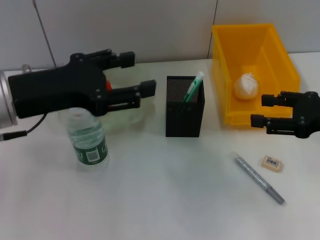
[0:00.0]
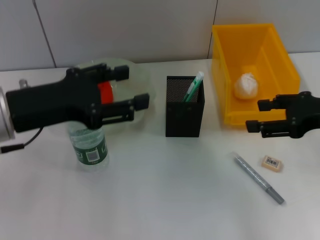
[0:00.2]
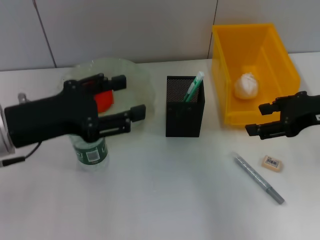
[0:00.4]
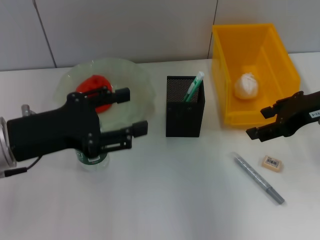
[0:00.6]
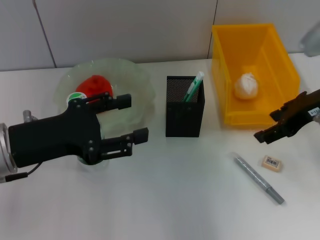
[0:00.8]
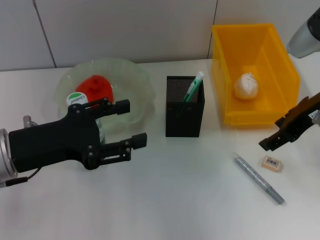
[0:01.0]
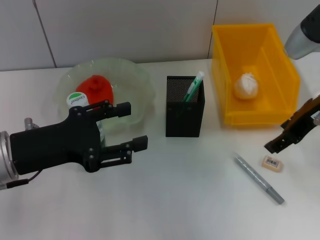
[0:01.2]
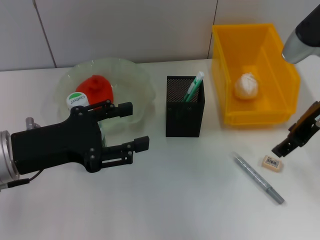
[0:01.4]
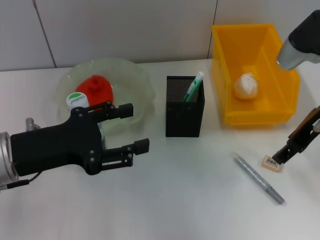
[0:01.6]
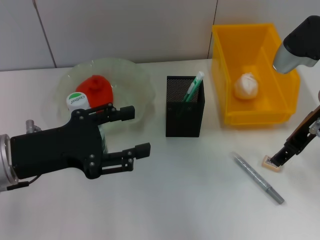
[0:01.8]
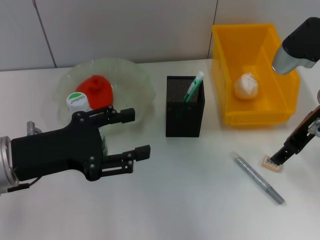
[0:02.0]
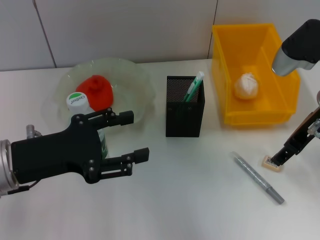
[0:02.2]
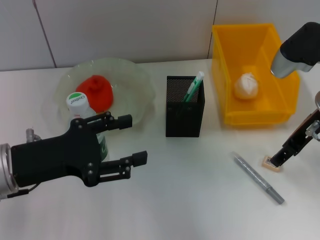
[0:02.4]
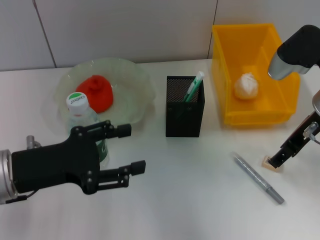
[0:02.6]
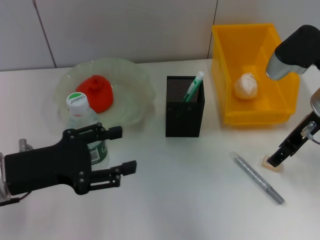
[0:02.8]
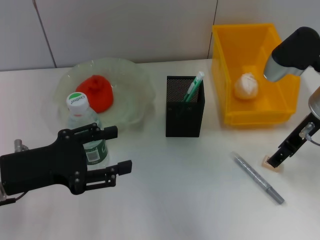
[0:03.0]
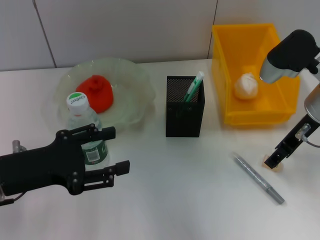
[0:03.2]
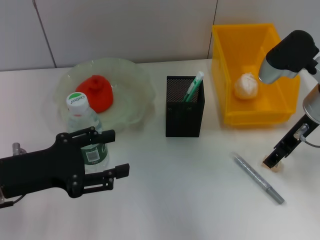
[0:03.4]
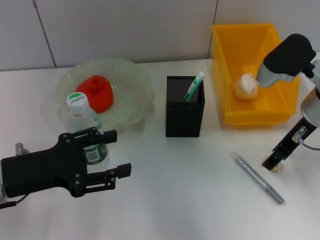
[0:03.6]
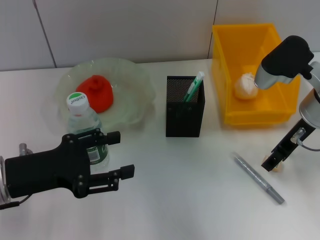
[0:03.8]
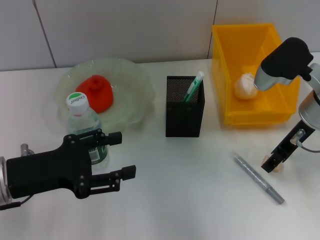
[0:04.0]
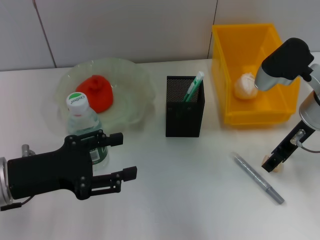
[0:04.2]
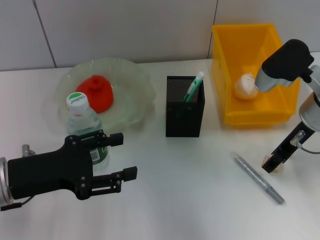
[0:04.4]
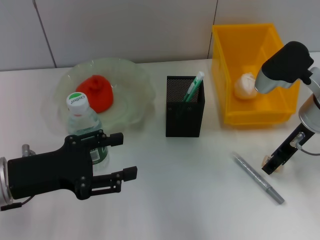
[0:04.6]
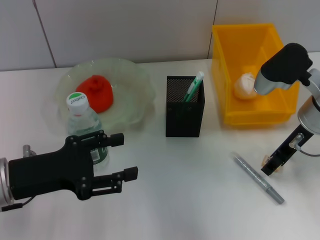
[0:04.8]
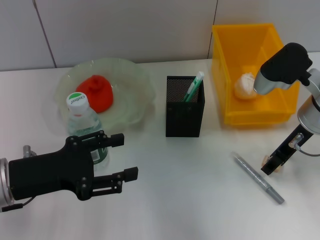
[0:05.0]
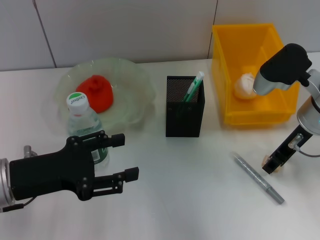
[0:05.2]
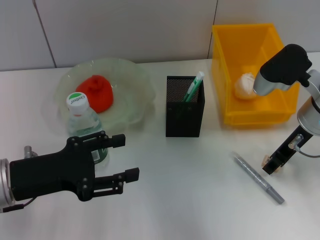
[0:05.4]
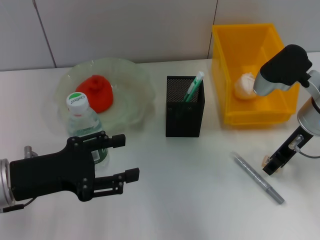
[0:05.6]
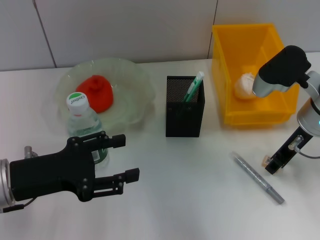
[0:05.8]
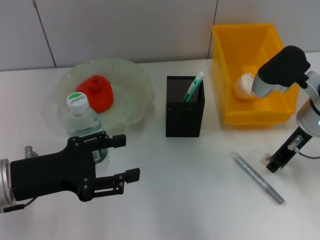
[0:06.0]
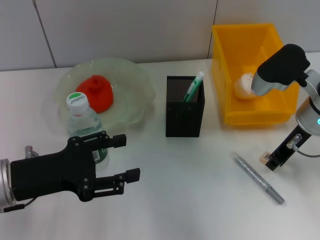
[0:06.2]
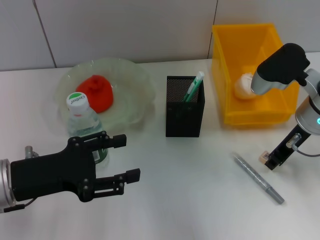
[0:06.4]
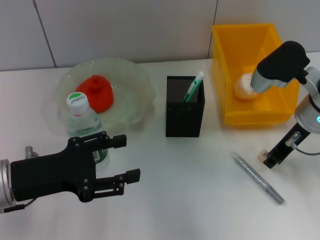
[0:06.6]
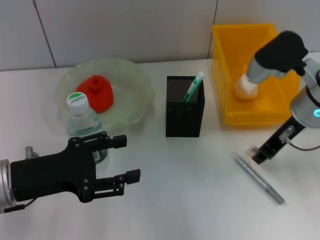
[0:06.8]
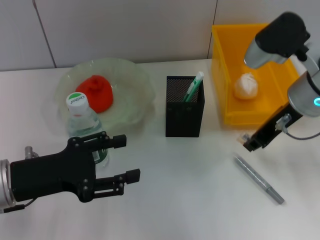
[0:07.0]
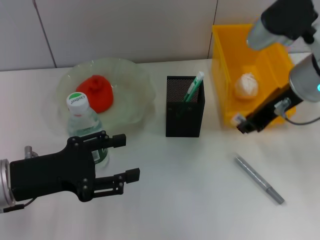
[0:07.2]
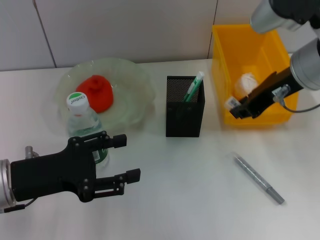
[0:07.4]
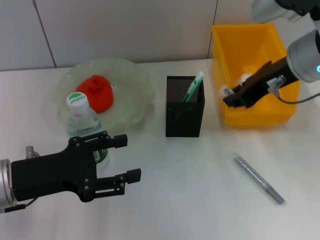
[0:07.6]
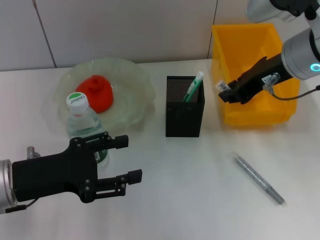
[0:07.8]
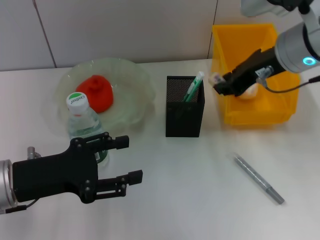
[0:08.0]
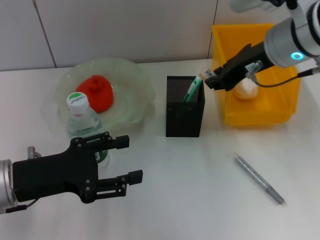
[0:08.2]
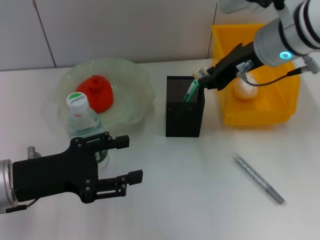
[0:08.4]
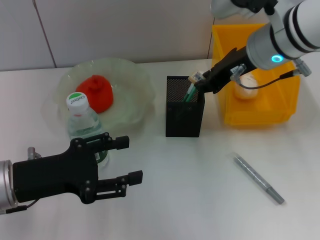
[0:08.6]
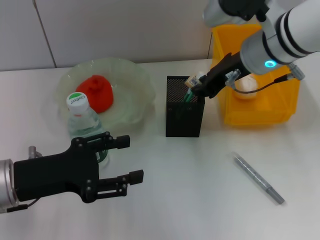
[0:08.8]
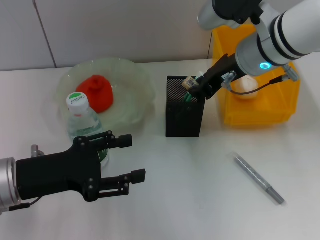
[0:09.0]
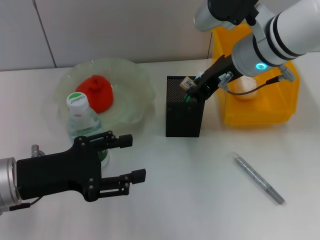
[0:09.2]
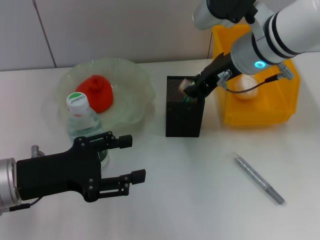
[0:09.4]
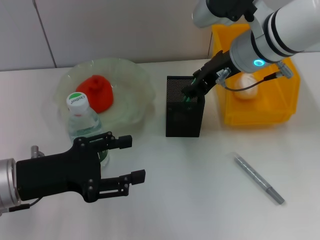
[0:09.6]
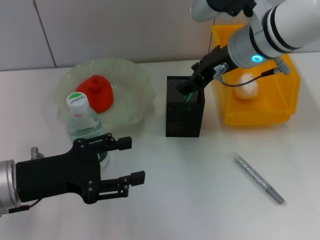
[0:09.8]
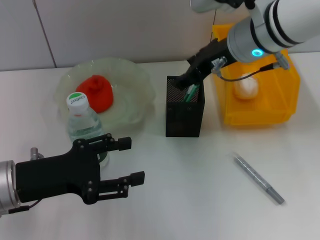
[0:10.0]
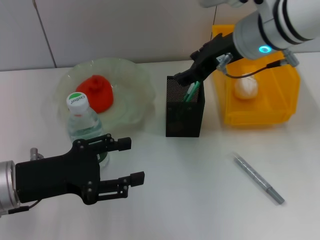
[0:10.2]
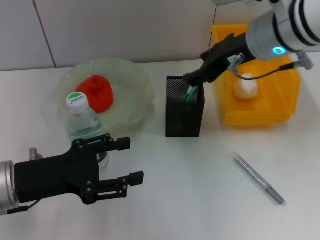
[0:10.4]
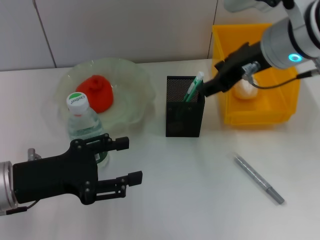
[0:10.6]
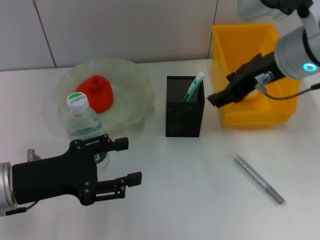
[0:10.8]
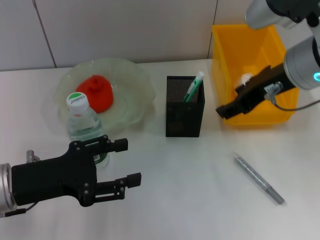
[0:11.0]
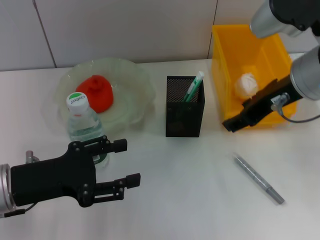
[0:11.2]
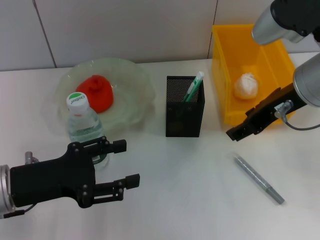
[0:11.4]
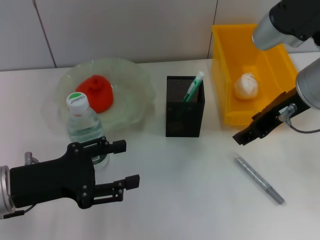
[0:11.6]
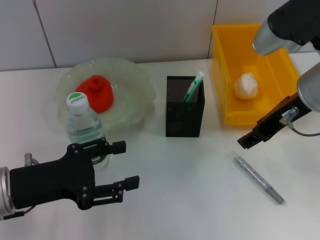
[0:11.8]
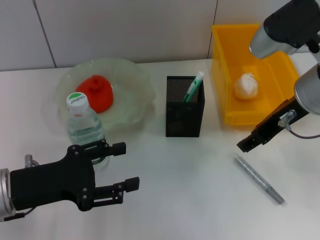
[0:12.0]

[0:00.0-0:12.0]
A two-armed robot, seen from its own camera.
Step, 0:00.0 to 0:05.8: Grab the eraser with the right hand.
Step, 0:06.0 to 0:09.8: Put the eraser into the pen holder with the right hand.
0:00.0 to 0:01.6: The left gripper shifts approximately 5 cm downward. Meanwhile the right gripper shifts about 10 cm to the left and forward.
0:01.6 to 0:04.4: The grippers stay close to where they were, moving slightly.
0:04.4 to 0:06.0: Both grippers stay about where they are.
0:06.0 to 0:07.6: The right gripper travels upward by some 10 cm, and closes up.
0:07.6 to 0:09.0: The right gripper ends up approximately 5 cm from where it was.
0:09.0 to 0:10.4: The right gripper opens up.
0:10.4 to 0:12.0: The right gripper shifts by roughly 5 cm.

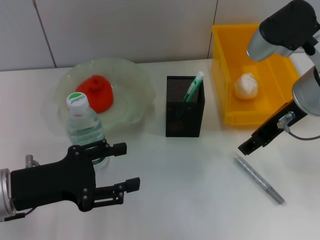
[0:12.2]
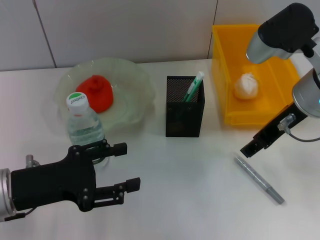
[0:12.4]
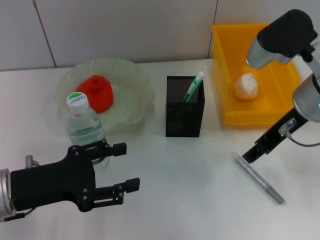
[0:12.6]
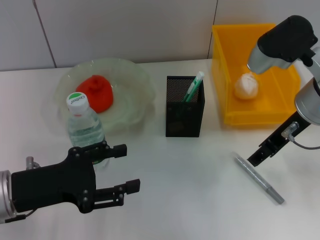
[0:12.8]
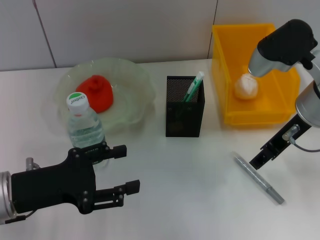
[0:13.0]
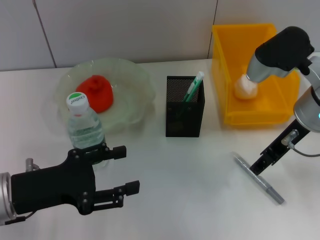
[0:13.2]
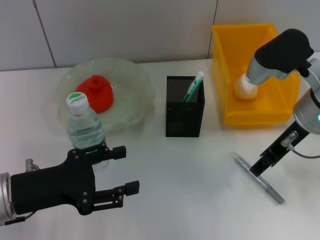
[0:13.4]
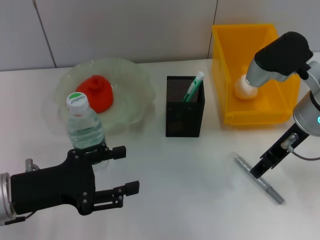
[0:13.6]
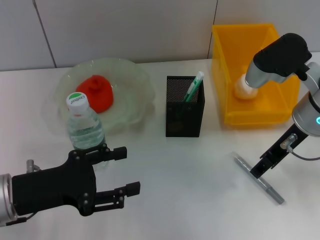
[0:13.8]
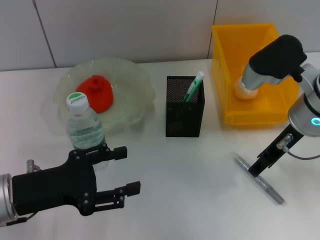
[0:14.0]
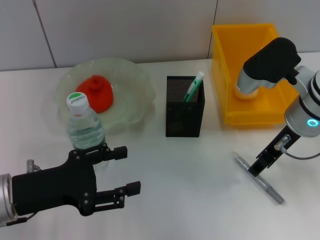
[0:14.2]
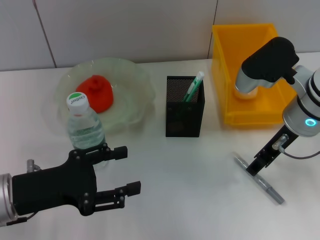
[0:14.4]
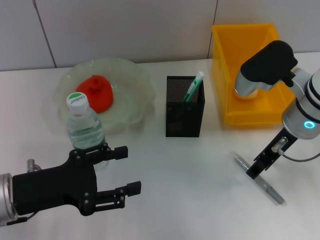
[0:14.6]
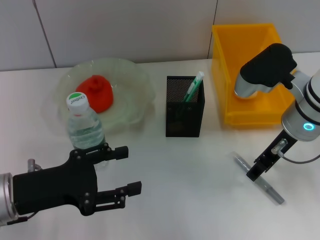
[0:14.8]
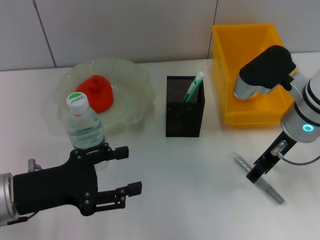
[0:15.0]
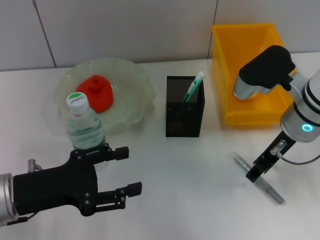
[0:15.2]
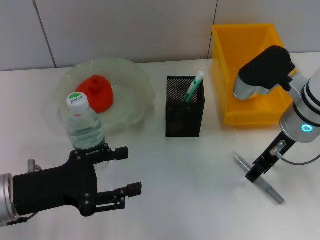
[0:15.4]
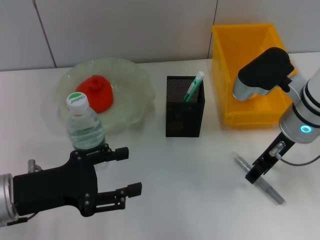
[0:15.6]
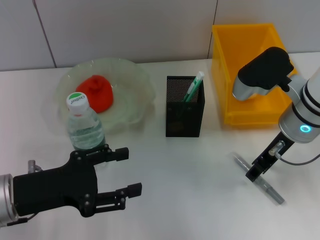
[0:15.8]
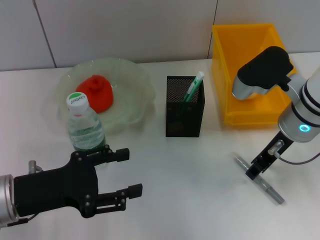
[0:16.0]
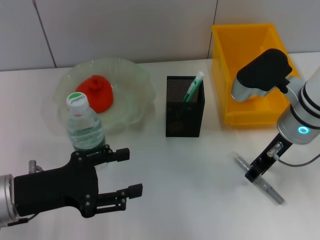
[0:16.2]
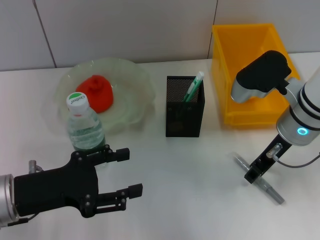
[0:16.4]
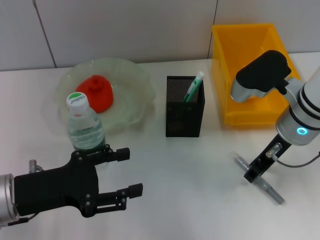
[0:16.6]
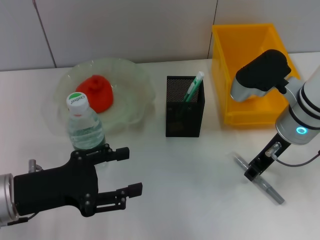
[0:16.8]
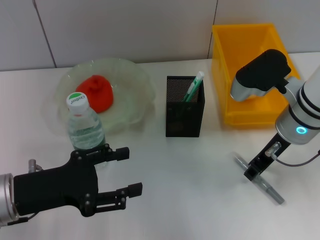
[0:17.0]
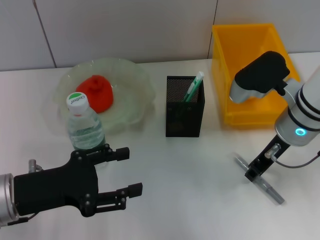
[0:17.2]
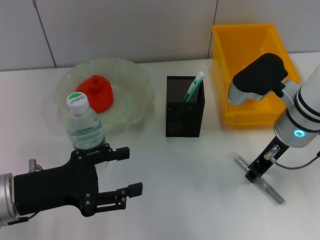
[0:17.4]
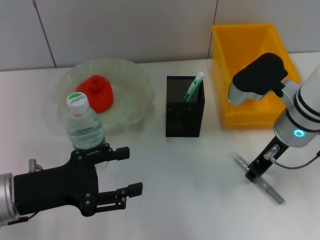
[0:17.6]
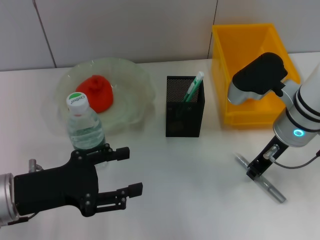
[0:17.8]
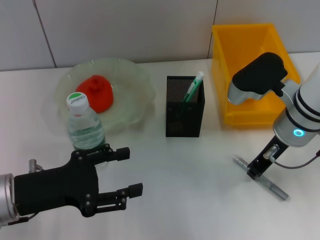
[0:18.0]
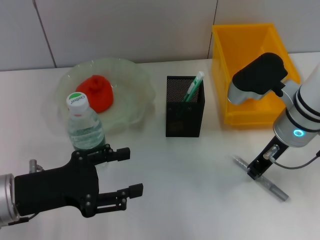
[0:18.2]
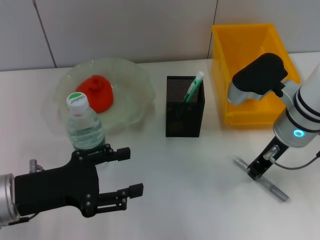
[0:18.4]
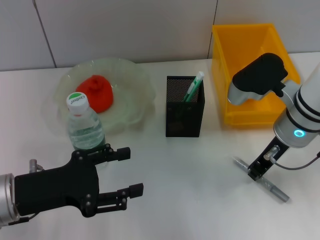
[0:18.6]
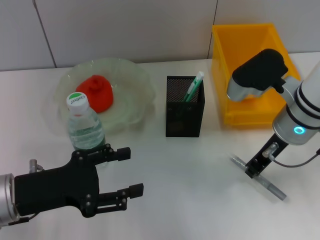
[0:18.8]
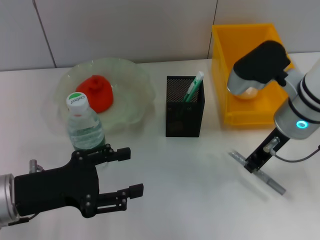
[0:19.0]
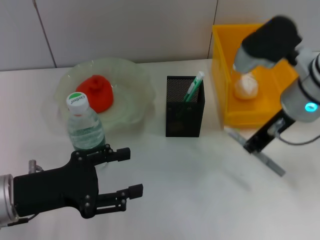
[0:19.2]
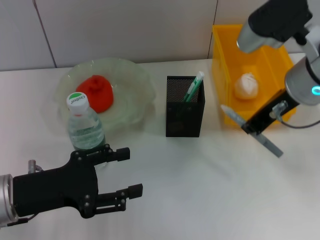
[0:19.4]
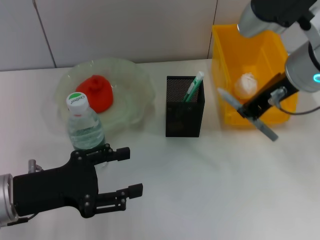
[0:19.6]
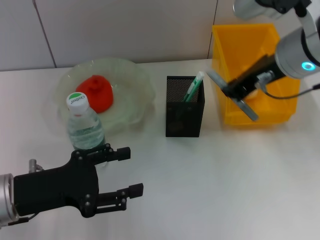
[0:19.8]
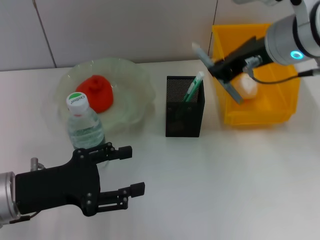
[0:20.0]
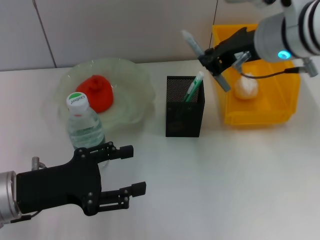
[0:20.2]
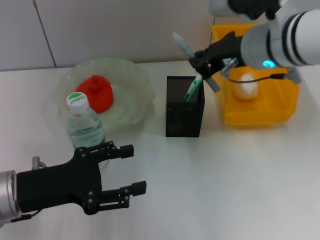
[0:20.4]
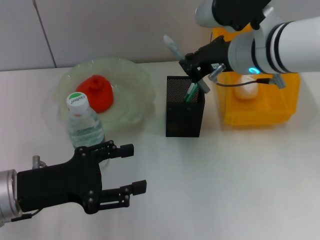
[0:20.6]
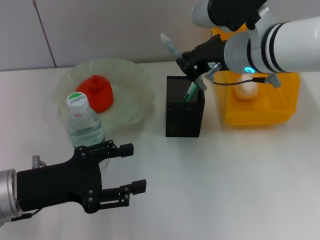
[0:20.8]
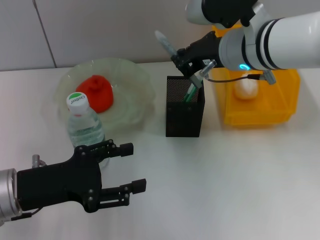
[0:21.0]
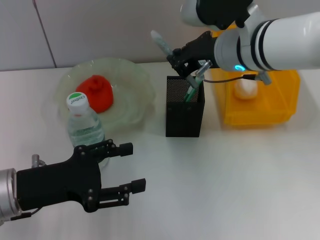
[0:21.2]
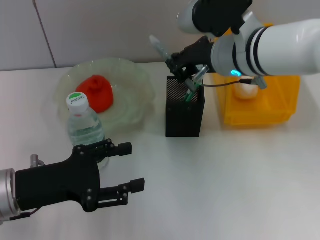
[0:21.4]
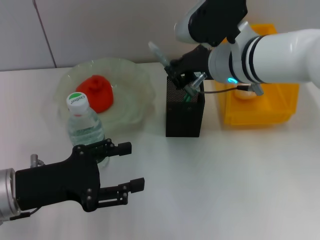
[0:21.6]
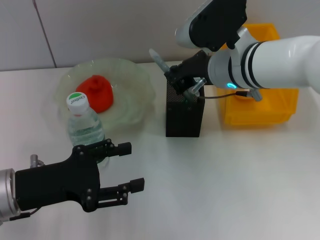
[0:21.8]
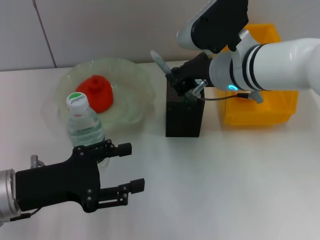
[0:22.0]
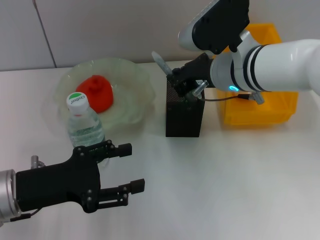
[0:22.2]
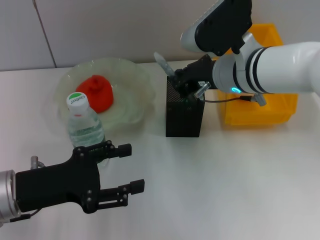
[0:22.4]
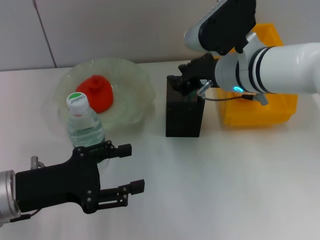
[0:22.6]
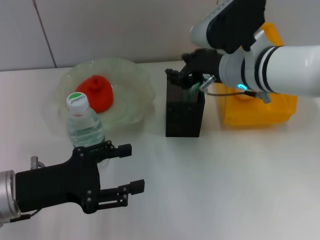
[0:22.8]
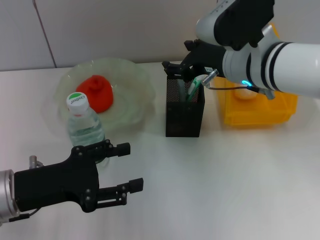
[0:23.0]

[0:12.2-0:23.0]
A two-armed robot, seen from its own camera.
Step, 0:12.2 to 0:17.8: Grab the gray glue with the right hand.
Step, 0:18.2 to 0:22.8: Place the gray glue into the pen holder with the right hand.
0:12.2 to 0:15.2: The grippers move only a little.
0:15.2 to 0:16.8: Both grippers stay put.
0:16.8 to 0:18.4: The right gripper closes.
0:18.4 to 0:20.0: The right gripper heads upward, covering about 10 cm.
0:20.0 to 0:21.4: The right gripper travels downward by some 5 cm.
0:21.4 to 0:23.0: The right gripper opens its fingers.
